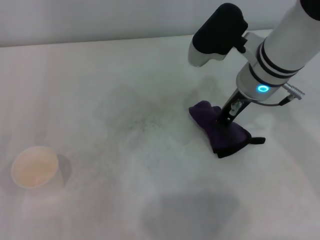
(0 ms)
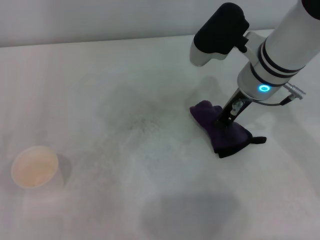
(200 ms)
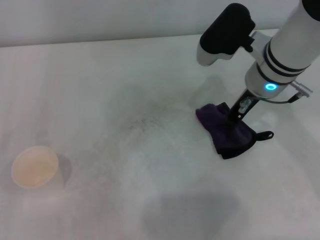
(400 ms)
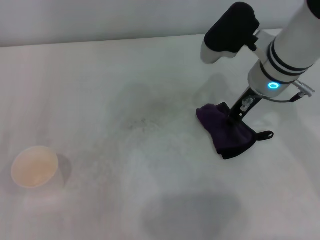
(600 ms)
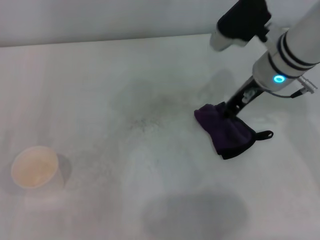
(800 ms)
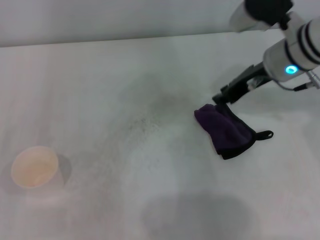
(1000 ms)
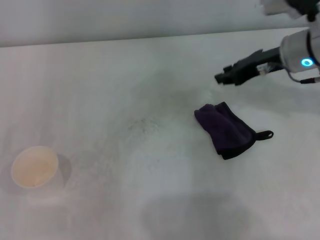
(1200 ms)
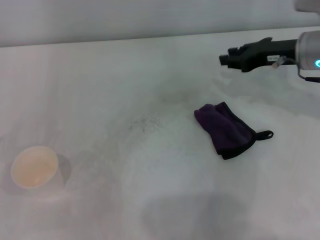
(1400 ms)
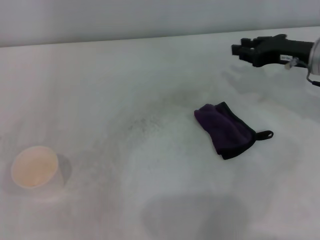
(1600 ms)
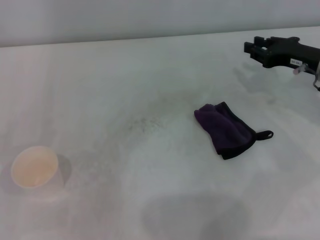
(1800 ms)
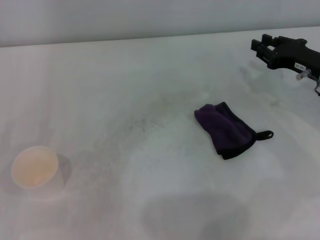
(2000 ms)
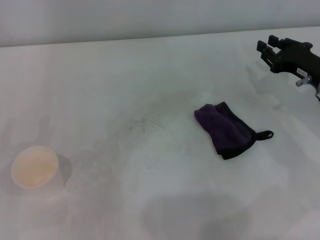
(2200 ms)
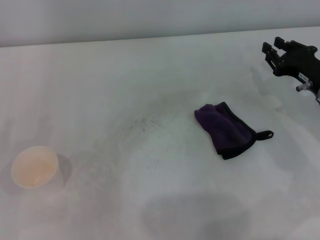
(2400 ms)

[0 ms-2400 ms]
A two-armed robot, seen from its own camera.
Step, 200 ms to 600 ms: Place the rag on the table with the right gripper.
0 ms to 1200 ms: The right gripper moves to the right, roughly 10 cm.
1200 ms to 2400 ms: The right gripper heads downward, to the right and backward, covering approximately 15 cm.

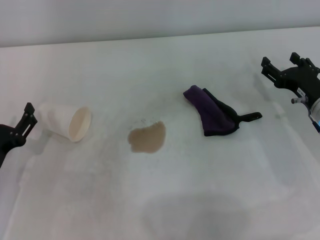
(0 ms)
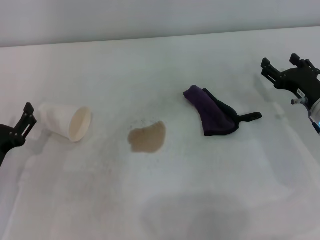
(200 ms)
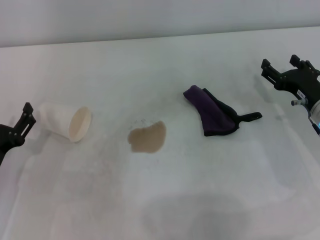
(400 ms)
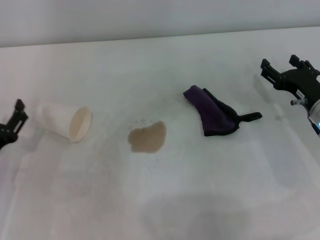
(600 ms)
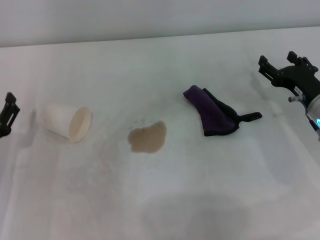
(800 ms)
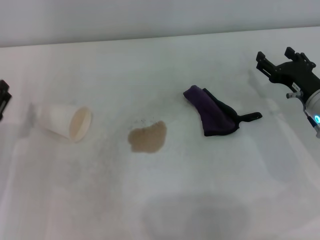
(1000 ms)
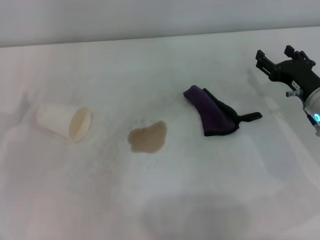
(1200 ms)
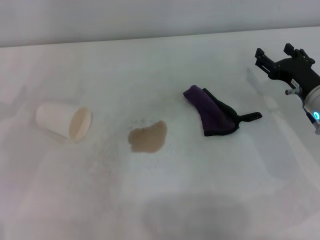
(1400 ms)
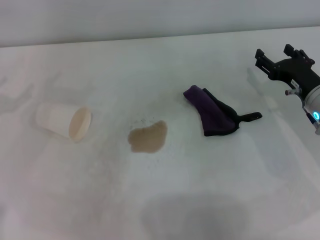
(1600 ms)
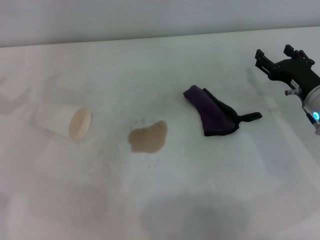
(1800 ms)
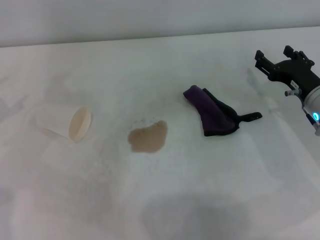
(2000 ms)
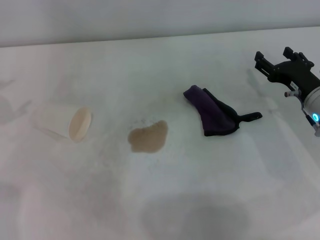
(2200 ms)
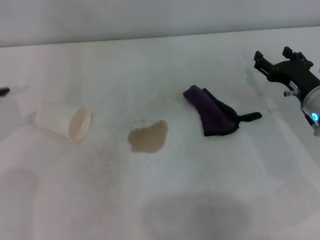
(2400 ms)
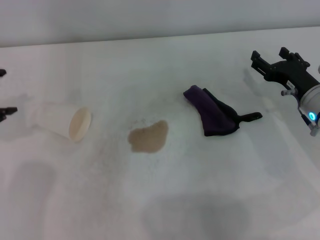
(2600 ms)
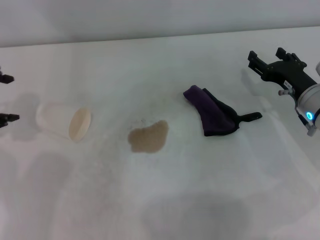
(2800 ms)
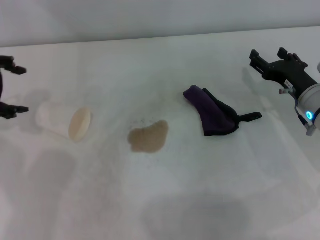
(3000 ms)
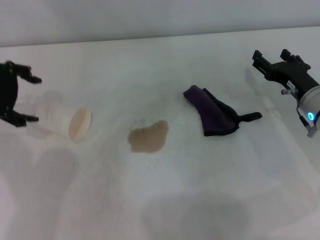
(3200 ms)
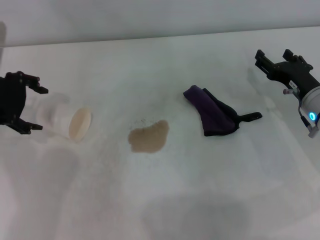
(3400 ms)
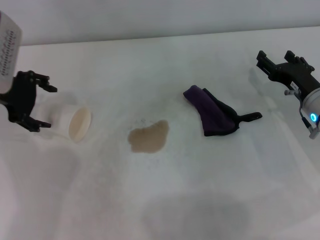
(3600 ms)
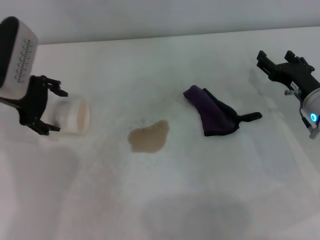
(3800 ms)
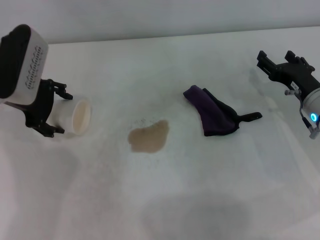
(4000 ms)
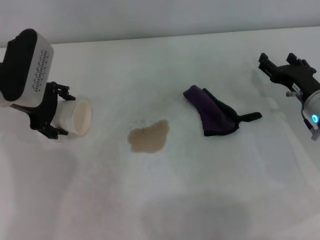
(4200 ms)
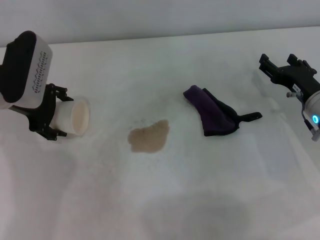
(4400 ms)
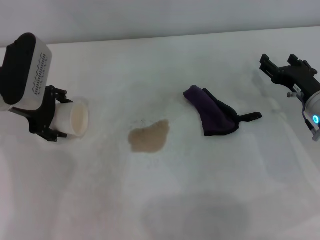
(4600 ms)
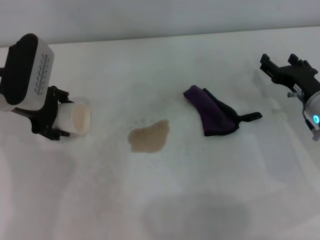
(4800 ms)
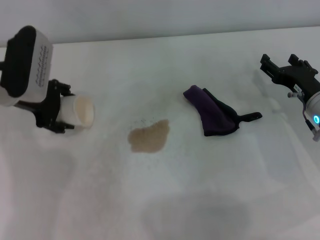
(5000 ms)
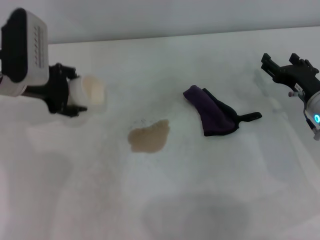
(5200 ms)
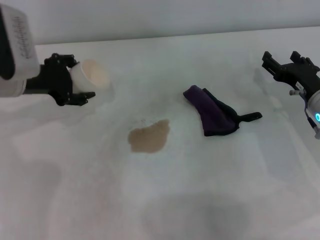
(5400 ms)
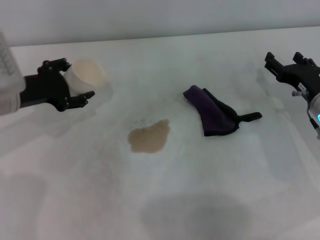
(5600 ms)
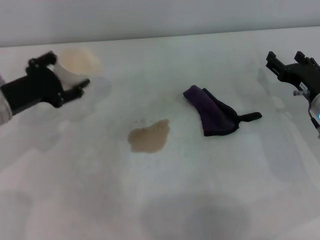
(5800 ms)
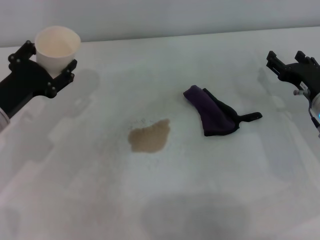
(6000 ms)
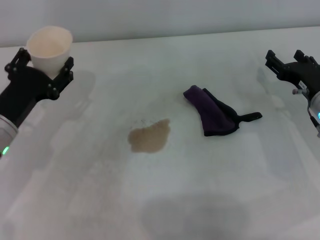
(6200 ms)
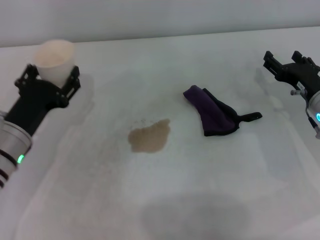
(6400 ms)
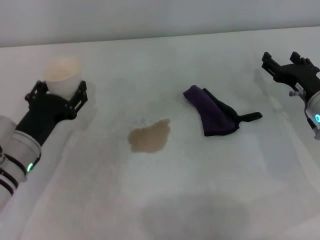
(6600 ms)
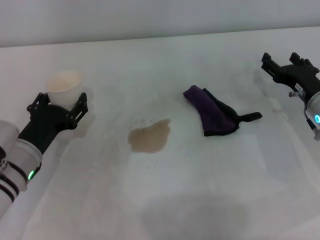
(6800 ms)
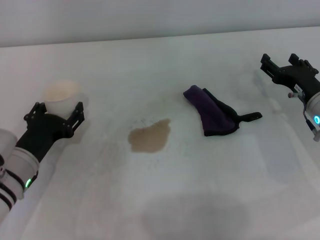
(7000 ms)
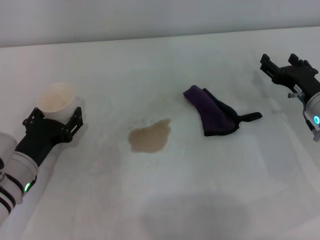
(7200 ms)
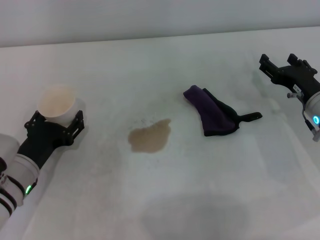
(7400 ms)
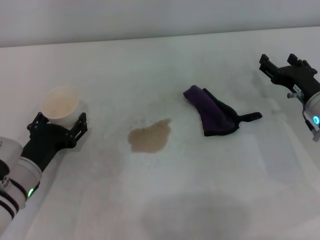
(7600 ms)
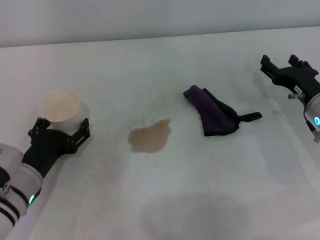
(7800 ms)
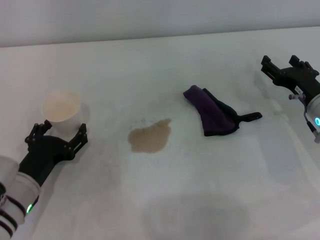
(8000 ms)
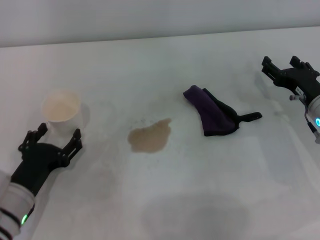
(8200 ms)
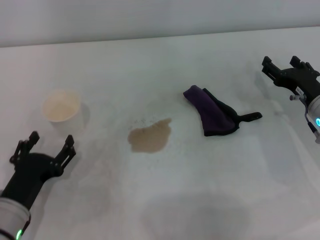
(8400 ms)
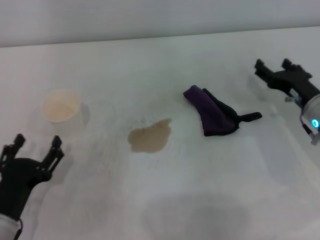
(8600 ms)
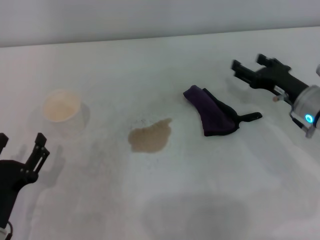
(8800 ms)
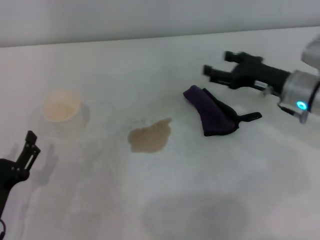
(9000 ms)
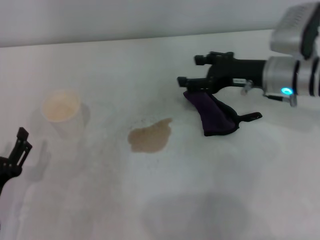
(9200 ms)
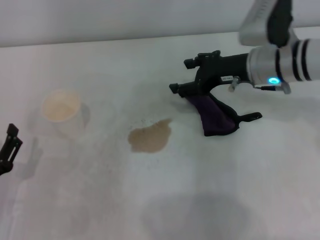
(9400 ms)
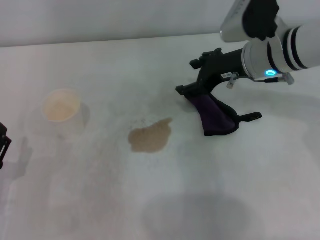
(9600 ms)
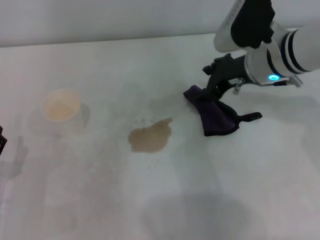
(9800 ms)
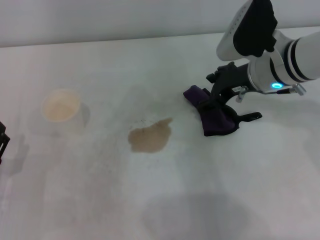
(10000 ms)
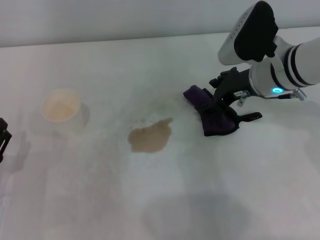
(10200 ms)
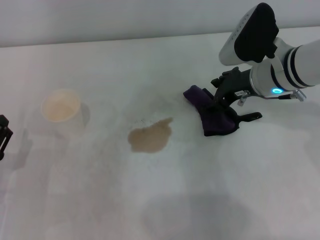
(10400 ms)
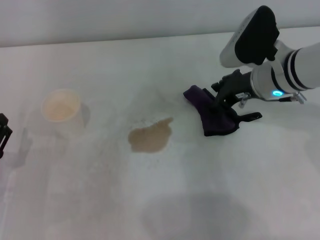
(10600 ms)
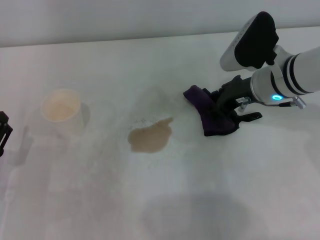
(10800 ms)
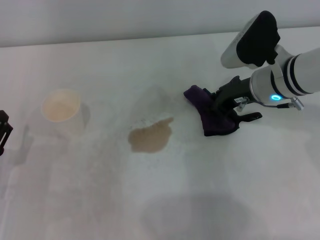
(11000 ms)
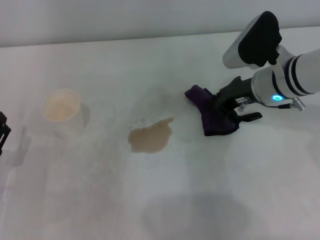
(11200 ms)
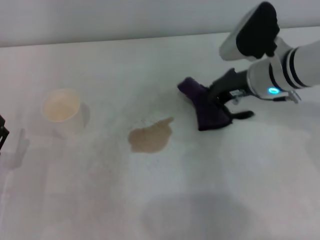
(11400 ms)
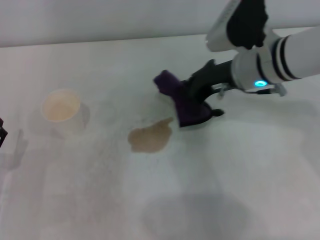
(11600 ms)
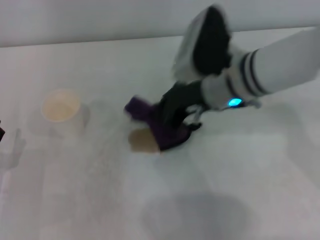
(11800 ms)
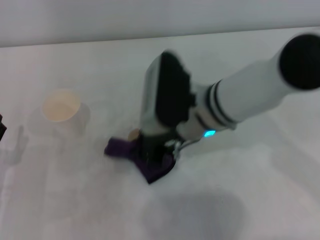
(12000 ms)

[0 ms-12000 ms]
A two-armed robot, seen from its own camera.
Step, 0 ms to 4000 ms: Grasp the paper cup with the left gripper.
Step, 4400 ms to 7800 ms: Stand the paper cup upright with the left gripper.
Step, 8000 ms to 11200 ms: Grasp the rag with the right gripper.
0 ms to 1600 ms: The left gripper heads upward, to the left and forward, covering about 20 cm.
1600 ms to 3000 ms: The left gripper goes about 10 cm upward and to the right.
3000 ms to 4400 ms: The left gripper goes approximately 10 cm downward and to the right.
4400 ms to 6000 ms: The left gripper goes some 10 cm backward and downward, and closes up.
6000 ms to 7600 ms: The left gripper shifts about 10 cm downward and backward.
7600 ms to 9000 ms: The right gripper moves about 5 cm; the left gripper travels backward by roughly 10 cm, and opens its fingers.
9000 ms to 10400 ms: The right gripper travels to the left and upward by some 10 cm.
10400 ms to 12000 ms: The right gripper moves to the left and backward, some 15 cm, and closes.

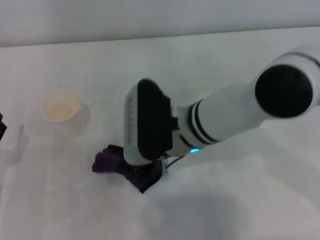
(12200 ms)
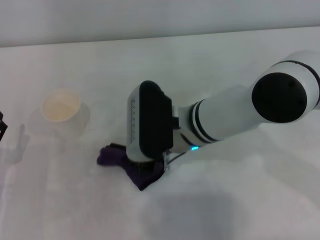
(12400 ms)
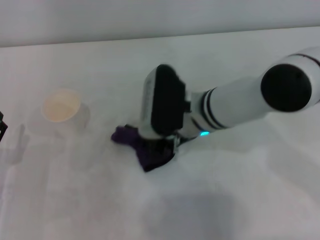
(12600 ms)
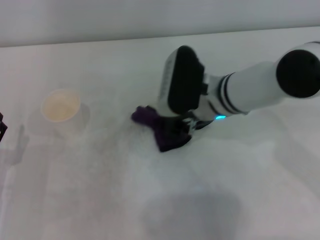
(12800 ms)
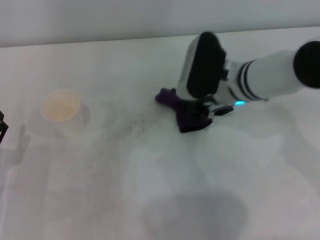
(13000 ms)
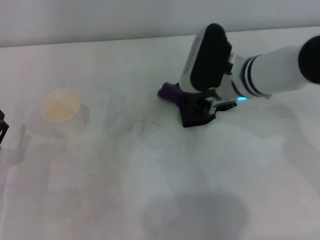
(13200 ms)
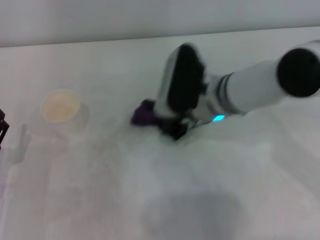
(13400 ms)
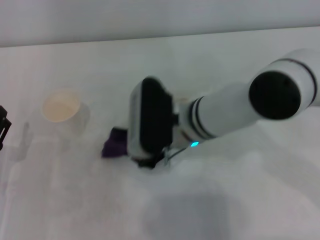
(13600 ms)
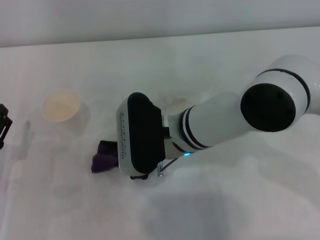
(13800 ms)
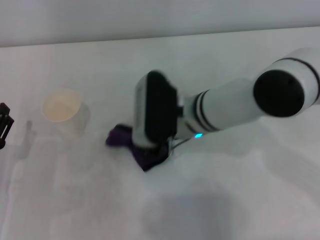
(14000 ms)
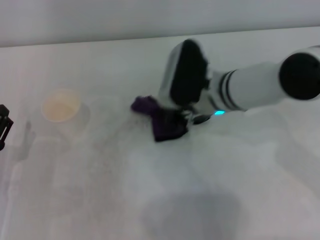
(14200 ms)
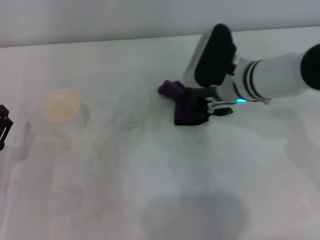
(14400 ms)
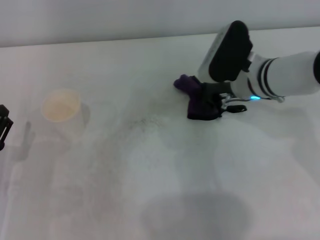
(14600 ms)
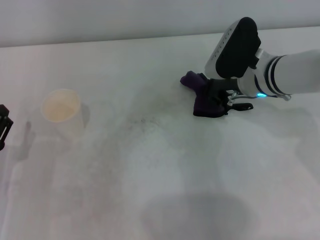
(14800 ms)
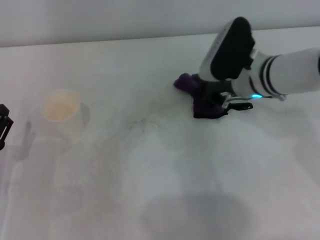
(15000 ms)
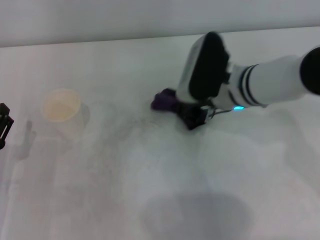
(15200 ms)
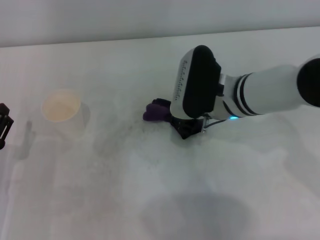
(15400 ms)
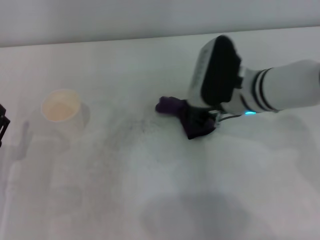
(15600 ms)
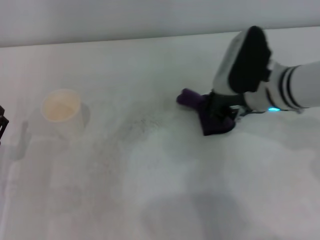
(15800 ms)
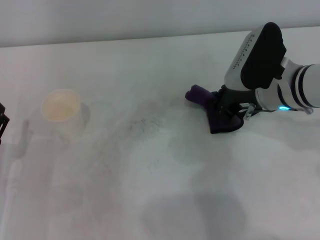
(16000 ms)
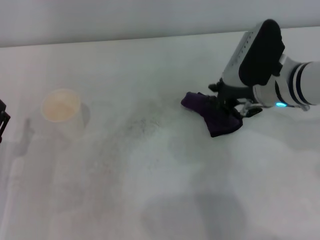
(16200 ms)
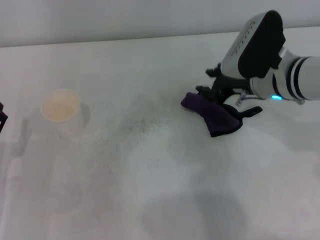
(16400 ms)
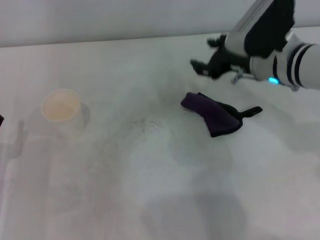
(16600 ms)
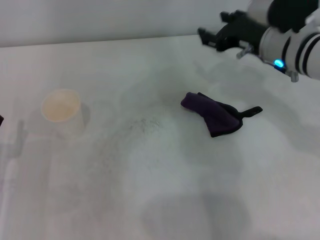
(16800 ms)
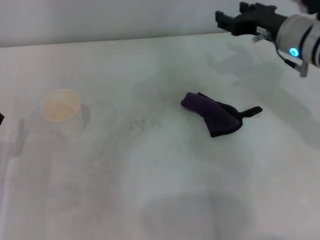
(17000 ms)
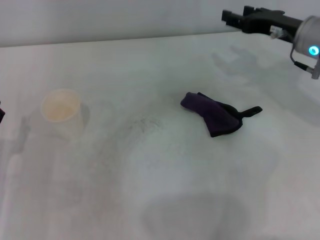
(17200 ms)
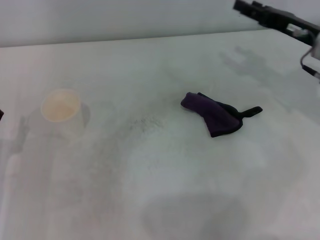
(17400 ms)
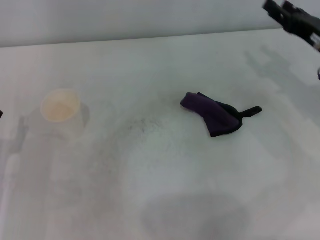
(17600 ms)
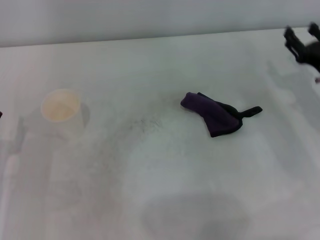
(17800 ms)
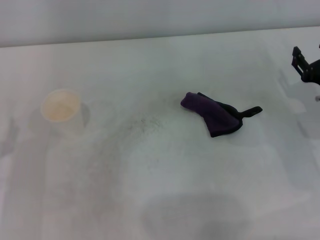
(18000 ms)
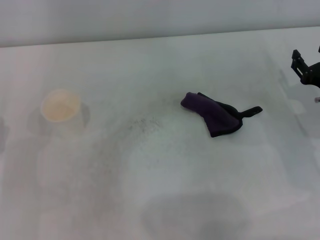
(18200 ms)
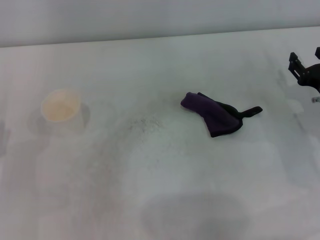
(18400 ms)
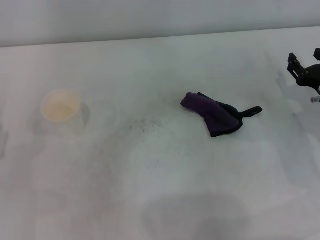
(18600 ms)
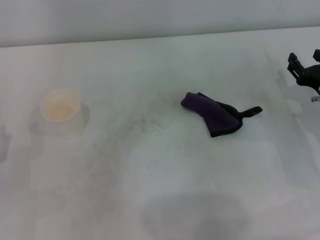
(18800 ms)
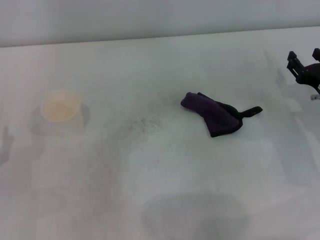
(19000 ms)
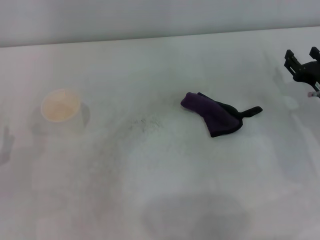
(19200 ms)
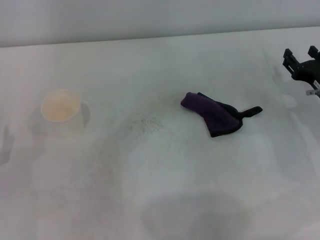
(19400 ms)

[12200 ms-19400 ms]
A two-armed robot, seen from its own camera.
Step, 12200 ms to 15000 ms: Wipe the stains off the table with the right gripper.
Step, 15200 ms to 16000 ms: Place the rag on the table with the right gripper.
12200 ms to 13600 ms: The right gripper moves about 10 cm to the right and comes back.
13600 ms to 15000 ms: The right gripper travels to the right and forward by about 15 cm.
15000 ms to 16600 ms: The right gripper opens.
16600 ms to 18000 ms: The right gripper travels to the right, downward and backward by some 20 cm.
18000 ms to 19400 ms: The grippers make only small movements.
